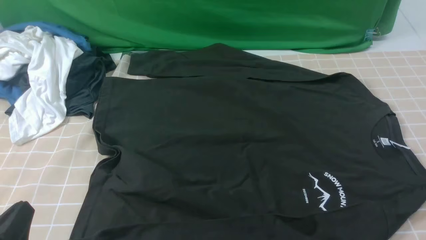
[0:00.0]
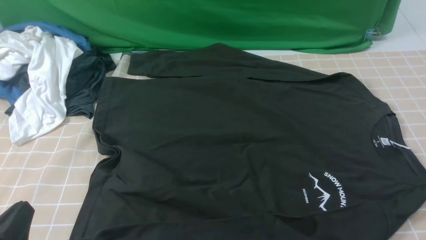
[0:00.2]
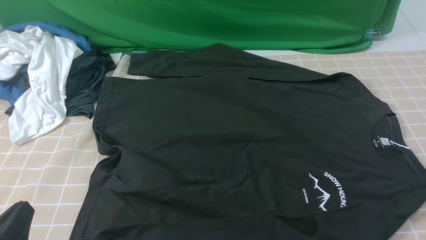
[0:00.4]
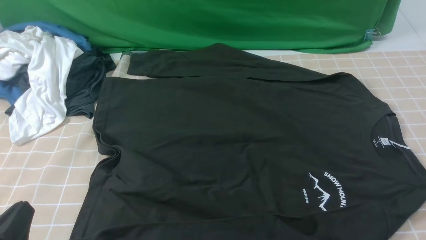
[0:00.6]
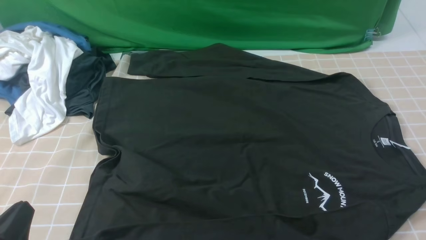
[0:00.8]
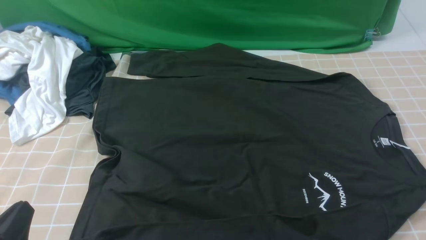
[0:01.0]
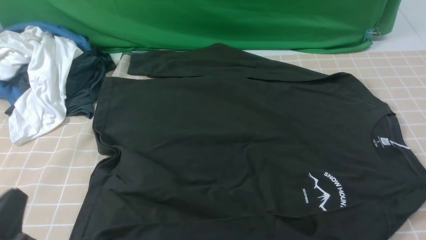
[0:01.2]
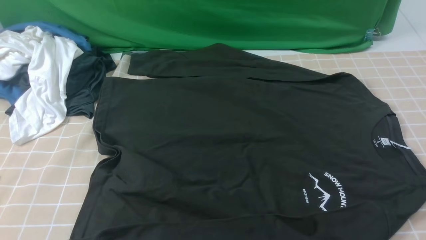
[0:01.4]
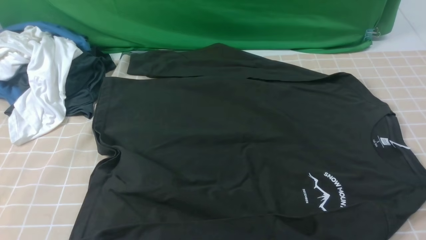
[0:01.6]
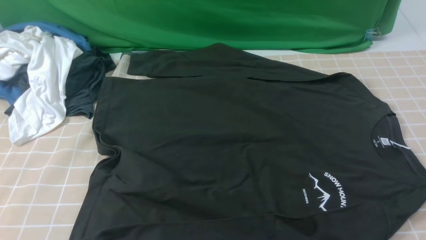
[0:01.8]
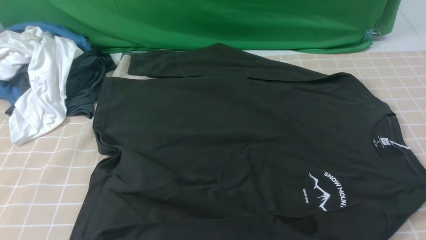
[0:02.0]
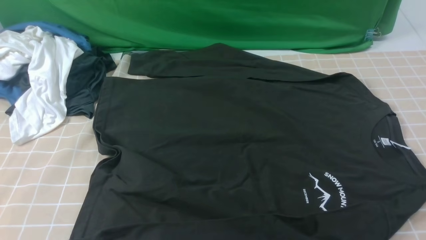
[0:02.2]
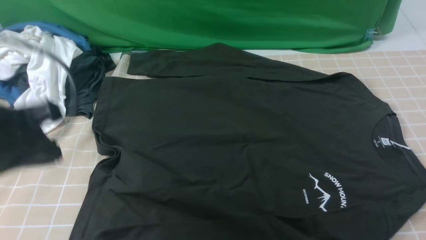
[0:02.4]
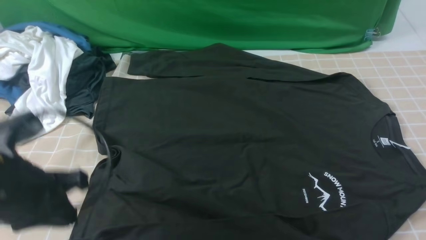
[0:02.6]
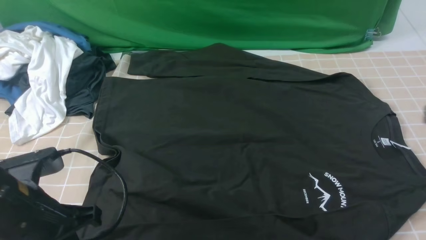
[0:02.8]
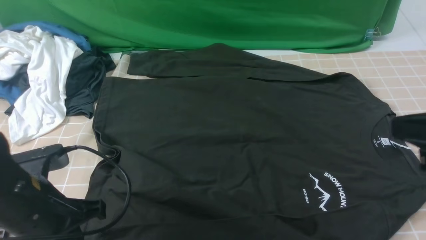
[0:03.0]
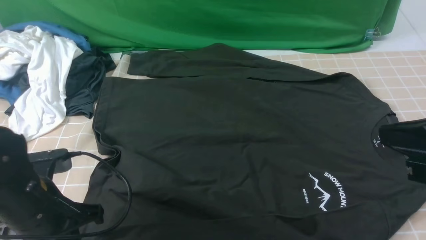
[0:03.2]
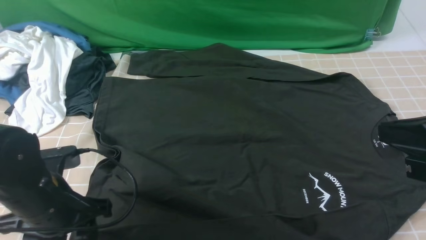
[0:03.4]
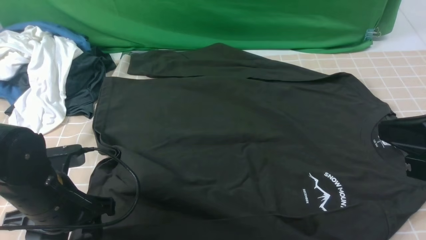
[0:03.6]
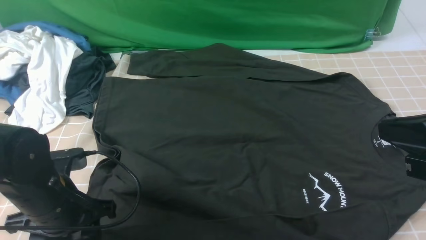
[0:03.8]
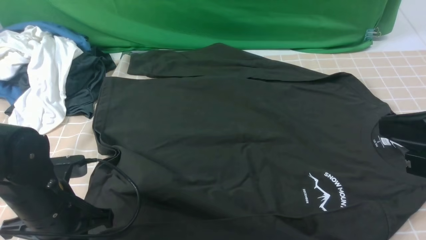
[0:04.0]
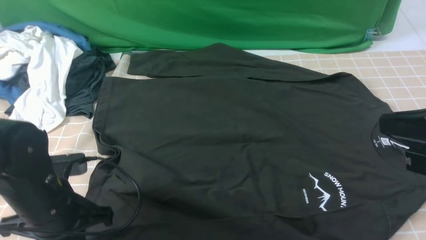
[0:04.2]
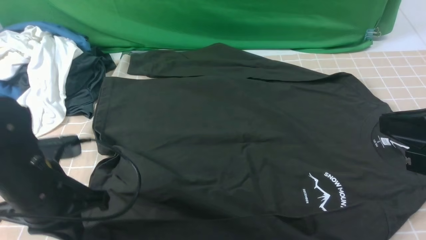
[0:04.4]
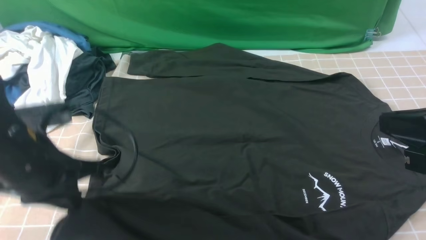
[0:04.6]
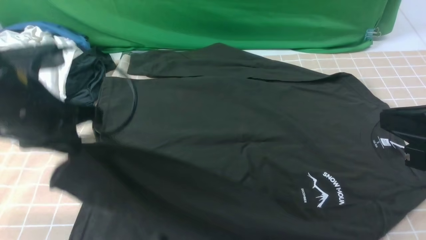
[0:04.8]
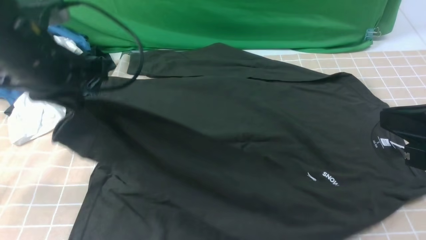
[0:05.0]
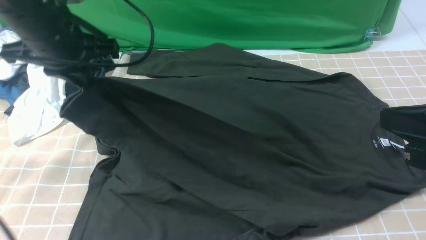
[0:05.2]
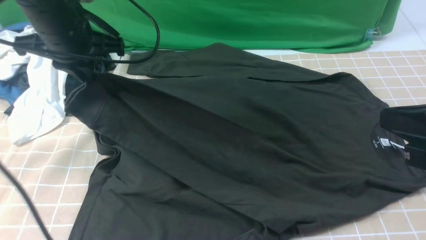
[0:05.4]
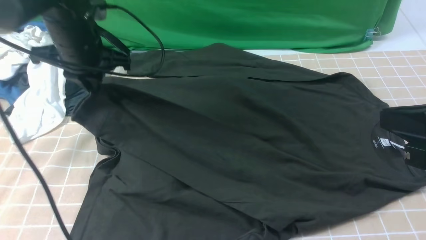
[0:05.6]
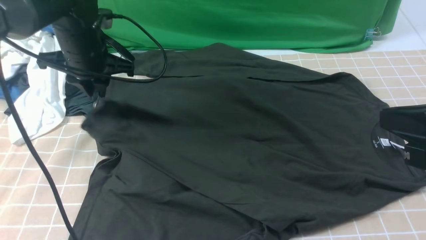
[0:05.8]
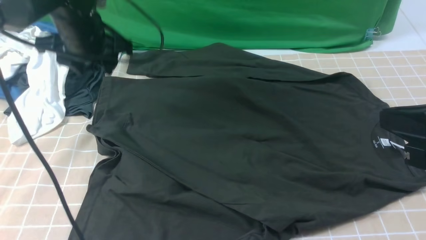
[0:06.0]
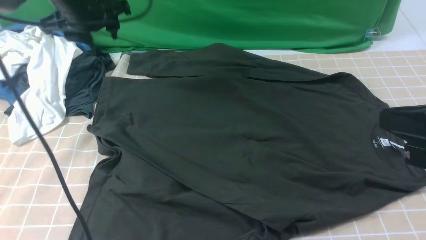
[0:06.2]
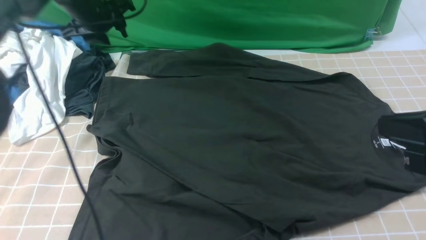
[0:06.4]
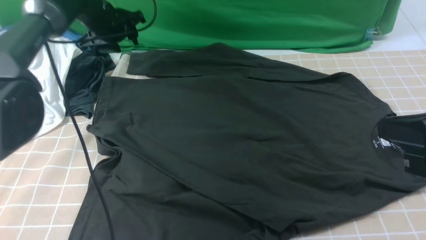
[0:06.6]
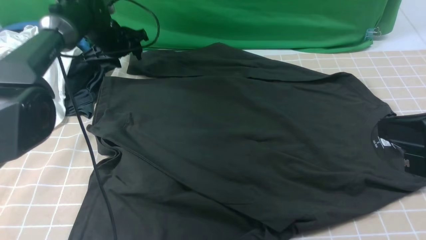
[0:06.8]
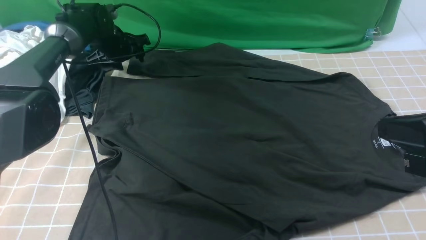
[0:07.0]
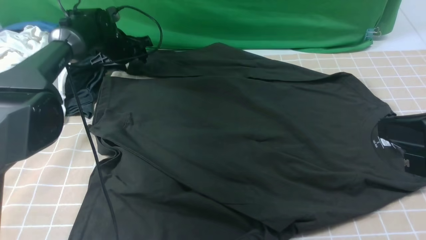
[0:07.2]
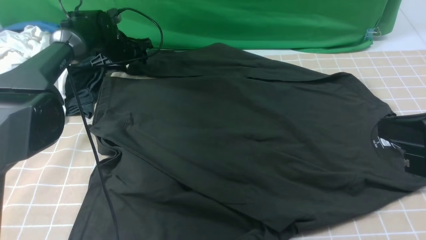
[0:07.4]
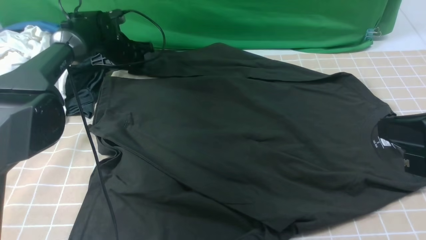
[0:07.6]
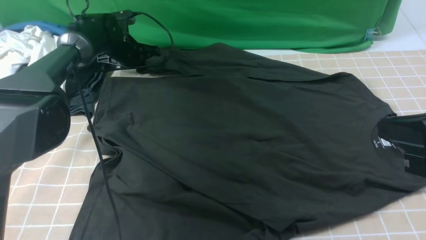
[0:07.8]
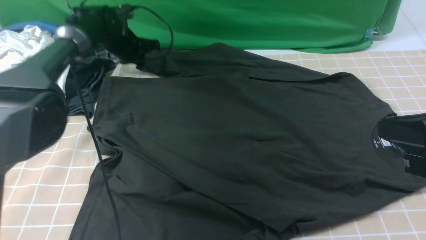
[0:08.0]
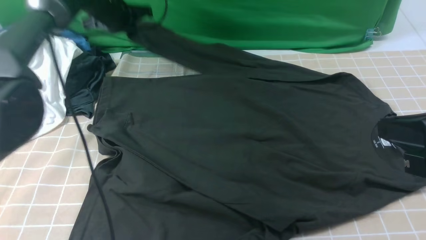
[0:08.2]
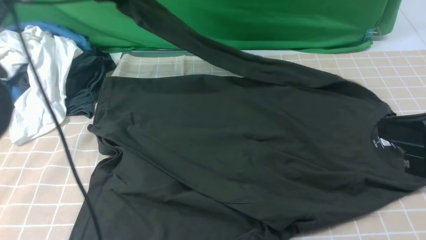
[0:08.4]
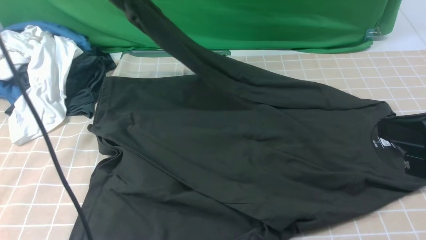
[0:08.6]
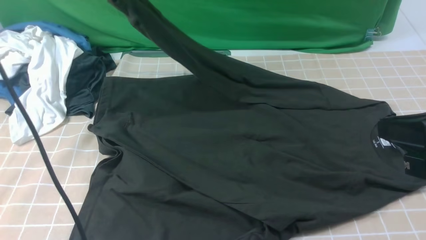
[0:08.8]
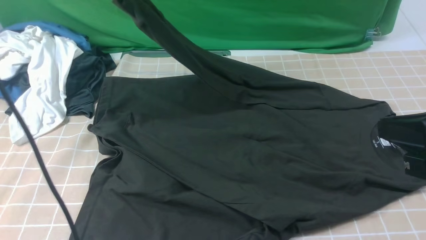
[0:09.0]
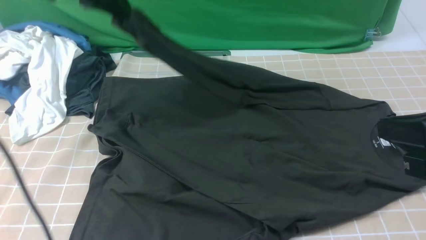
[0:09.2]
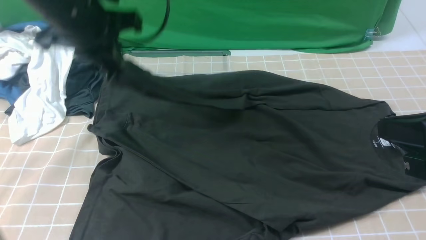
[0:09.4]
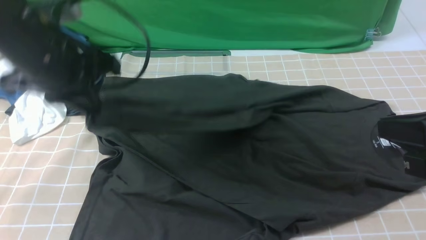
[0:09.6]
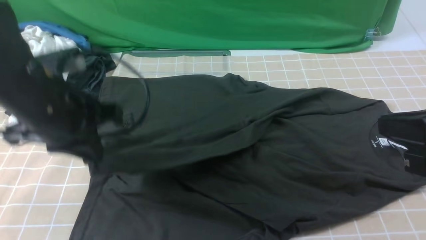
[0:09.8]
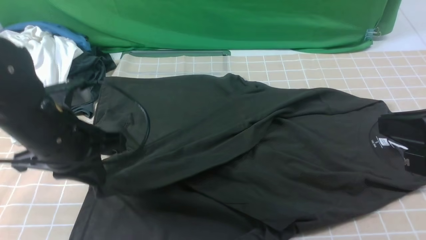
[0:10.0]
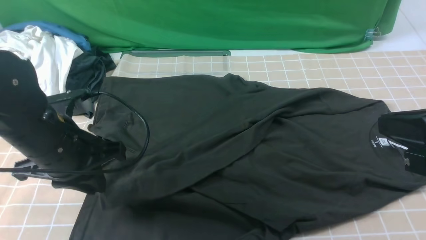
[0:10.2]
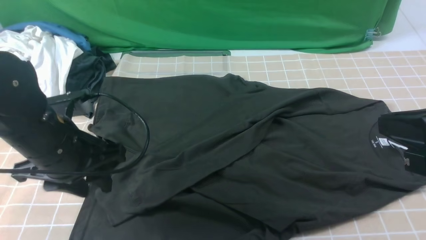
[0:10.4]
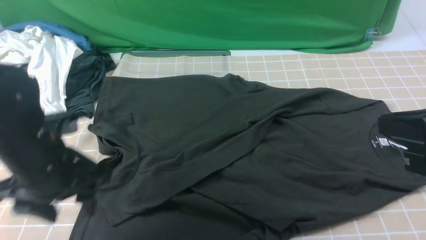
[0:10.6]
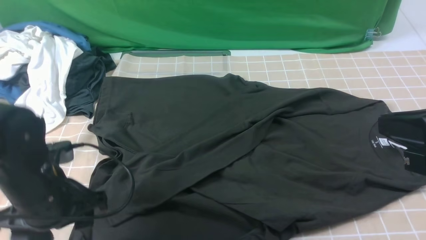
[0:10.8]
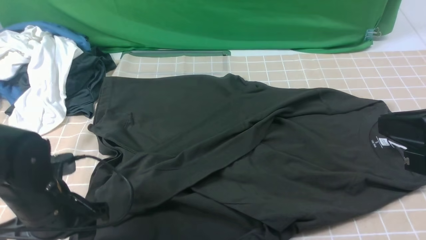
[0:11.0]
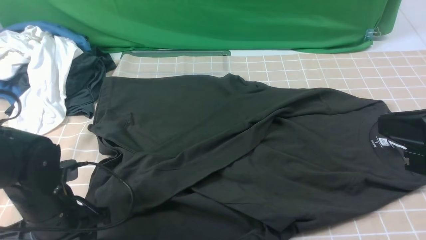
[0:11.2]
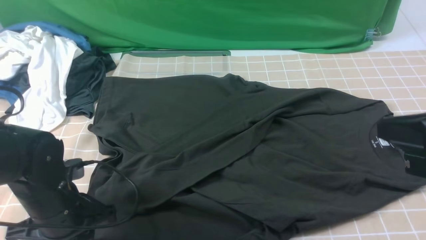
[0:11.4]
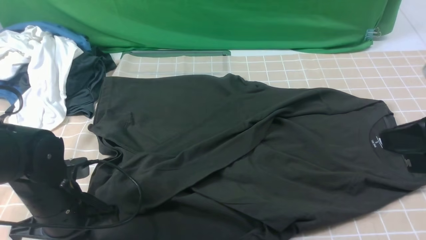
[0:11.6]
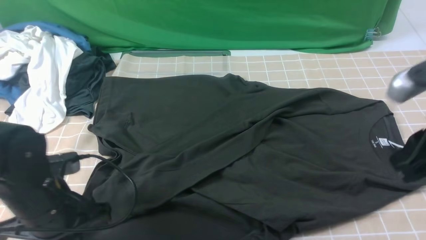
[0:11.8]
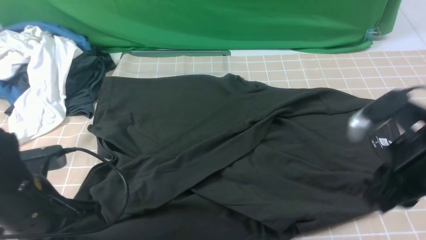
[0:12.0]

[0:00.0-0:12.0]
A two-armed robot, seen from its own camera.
Step, 0:00.0 to 0:04.4: use the left arm to clamp the cuff closest to it.
Step, 0:04.6 to 0:05.8: use the left arm to drag and place the cuff at the centered position on the left edge of the fabric.
Step, 0:06.0 to 0:07.6: use the left arm to clamp the cuff farthest from it.
Step, 0:07.8 to 0:10.8: use the left arm to drag and drop the cuff onto the cuff closest to the left arm.
0:00.0 to 0:01.6: The left gripper goes roughly 5 cm upward.
0:01.6 to 0:03.0: The right gripper is displaced upward, forward and to the left by some 15 cm, while the left gripper is displaced forward and to the right by roughly 15 cm, and goes upward and returns, approximately 10 cm each way.
0:03.0 to 0:04.4: The left gripper opens and closes again.
0:04.4 to 0:06.0: The left gripper moves forward, roughly 20 cm, and opens its fingers.
0:06.0 to 0:07.6: The left gripper shifts approximately 20 cm downward and forward.
0:07.6 to 0:09.0: The left gripper travels upward and backward by some 30 cm, and closes its fingers.
0:09.0 to 0:10.4: The left gripper is displaced backward and downward by approximately 25 cm, and opens its fingers.
0:10.4 to 0:12.0: The left gripper is displaced backward by about 5 cm, and closes; the right gripper travels downward by some 5 cm.

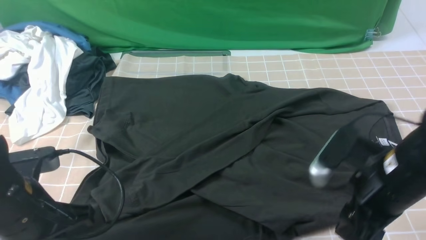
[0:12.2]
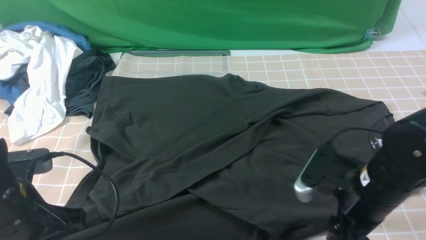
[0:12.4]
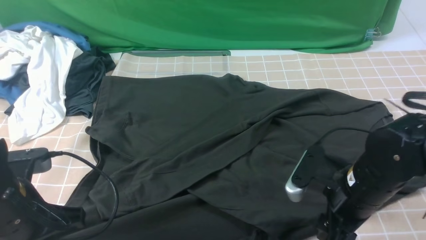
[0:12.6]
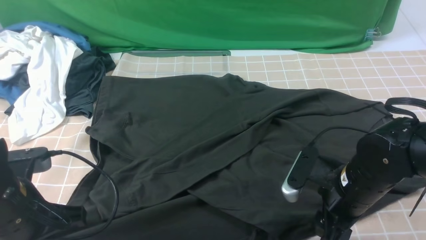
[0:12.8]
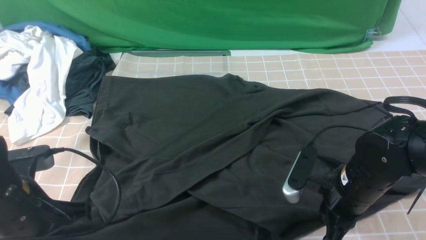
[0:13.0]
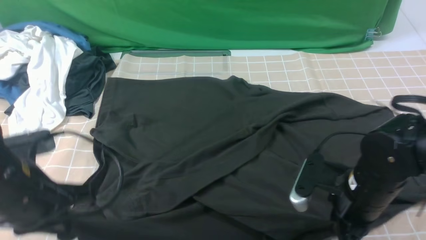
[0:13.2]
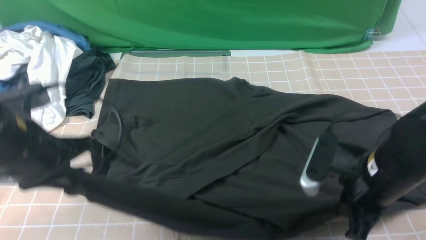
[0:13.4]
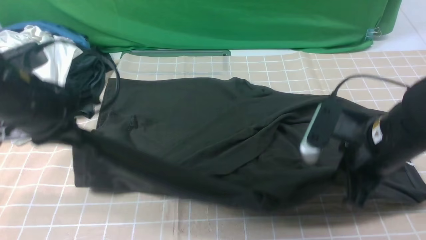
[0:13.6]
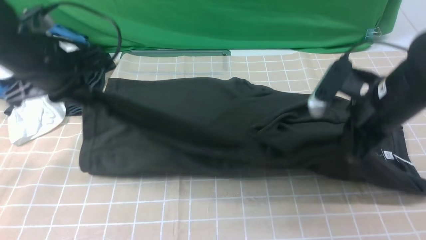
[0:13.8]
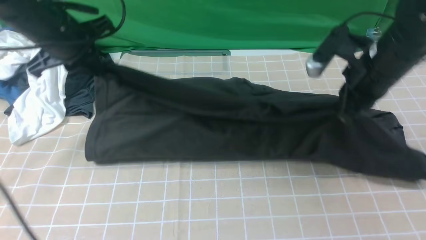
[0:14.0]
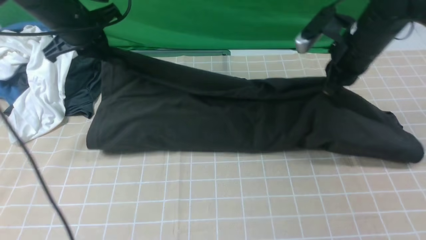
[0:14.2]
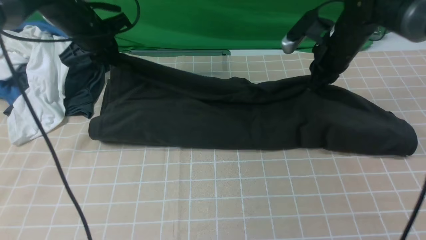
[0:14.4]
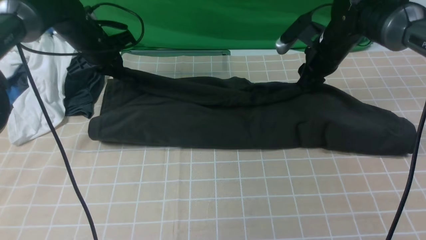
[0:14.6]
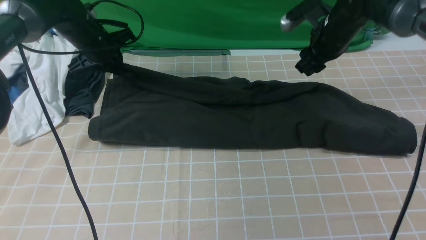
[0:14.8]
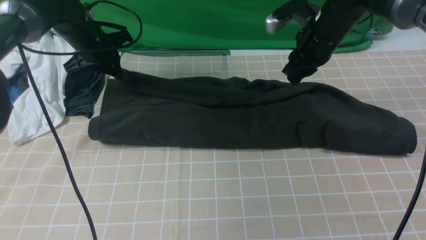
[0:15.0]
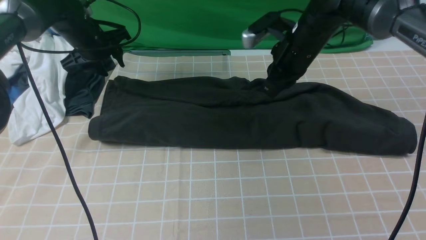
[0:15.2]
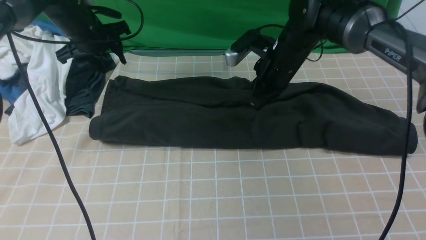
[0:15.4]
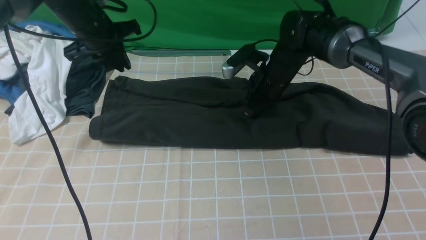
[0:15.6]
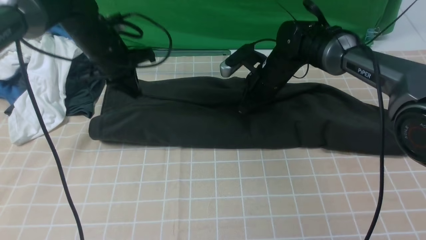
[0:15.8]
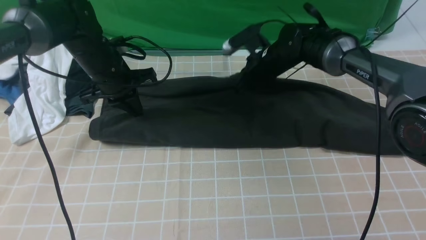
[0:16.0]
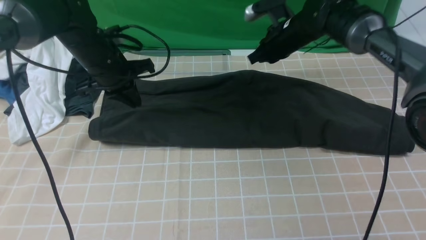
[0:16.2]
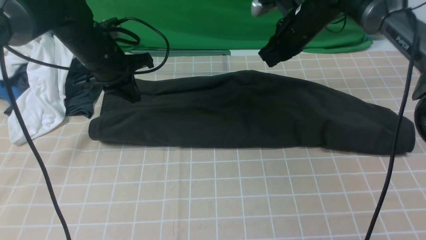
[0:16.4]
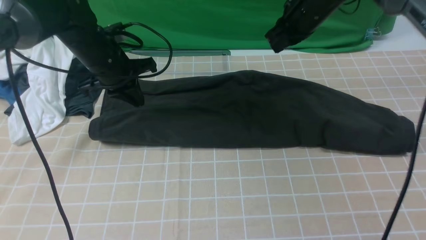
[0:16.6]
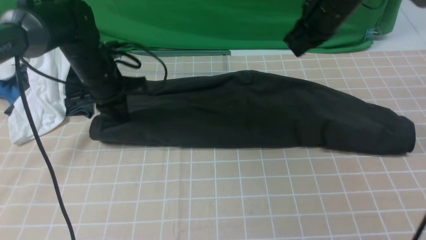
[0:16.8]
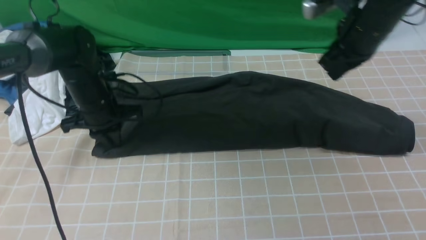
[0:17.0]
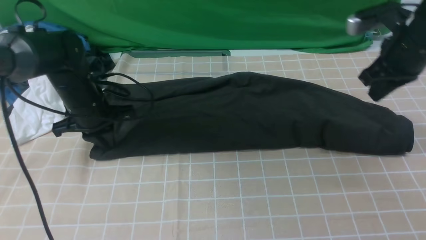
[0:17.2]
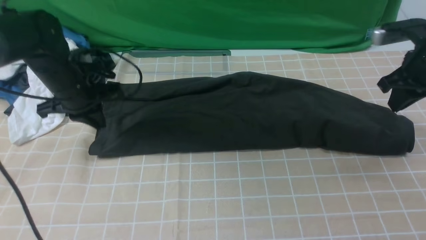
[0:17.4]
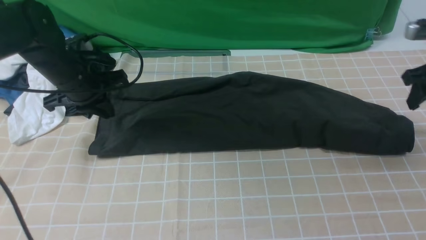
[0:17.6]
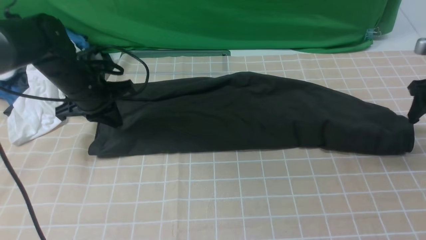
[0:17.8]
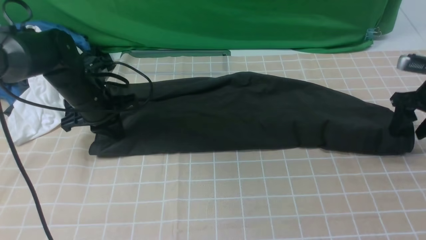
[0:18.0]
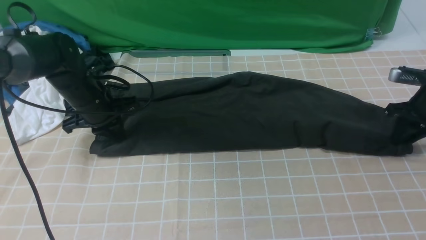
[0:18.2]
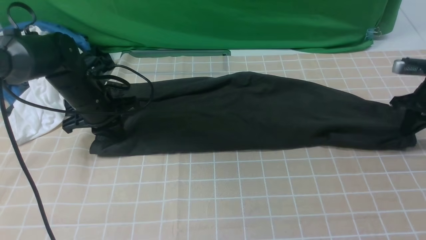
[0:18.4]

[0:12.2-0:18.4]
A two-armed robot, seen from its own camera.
Step, 0:13.2 to 0:15.0: use both arms to drag the lower edge of the fabric forward and fold it over the upper edge.
0:12.2 to 0:13.8: The left gripper is displaced forward and upward by roughly 20 cm. The right gripper goes some 10 cm forward, and closes up.
0:13.8 to 0:15.4: The left gripper goes about 15 cm forward and downward, and opens up. The right gripper goes approximately 15 cm forward and to the left, and opens and closes again.
0:15.4 to 0:16.8: The left gripper goes about 10 cm backward and downward, and closes its fingers. The right gripper travels upward and to the right by some 10 cm.
0:16.8 to 0:18.4: The right gripper shifts about 25 cm to the right and downward, and opens, then closes once more.
